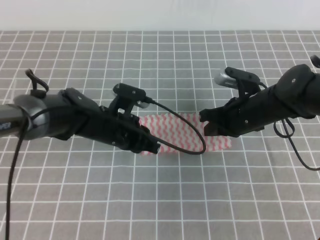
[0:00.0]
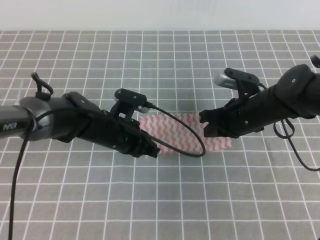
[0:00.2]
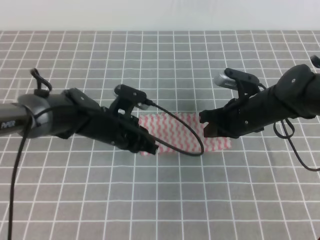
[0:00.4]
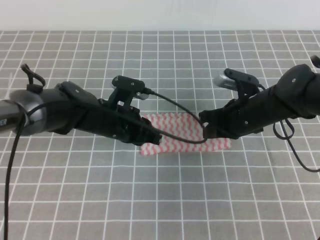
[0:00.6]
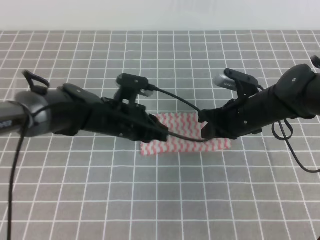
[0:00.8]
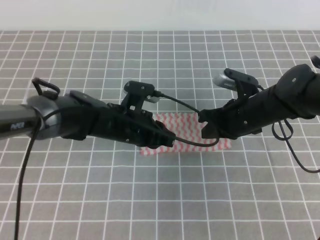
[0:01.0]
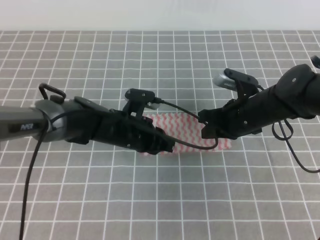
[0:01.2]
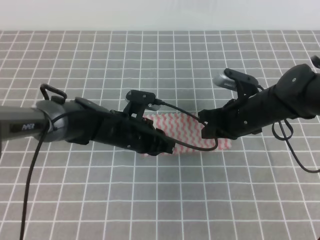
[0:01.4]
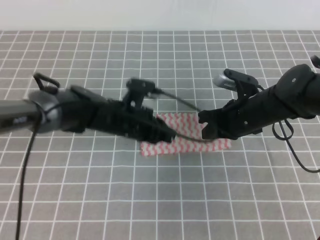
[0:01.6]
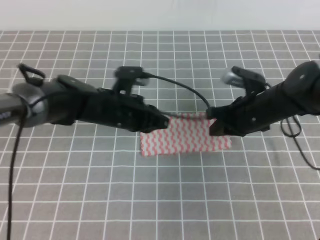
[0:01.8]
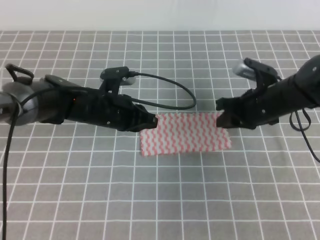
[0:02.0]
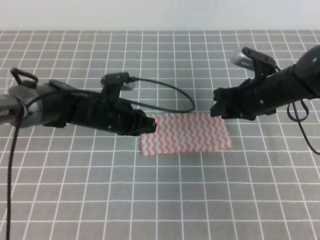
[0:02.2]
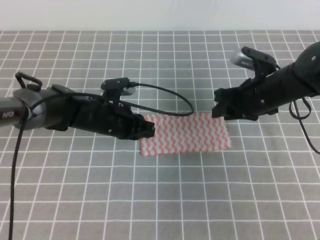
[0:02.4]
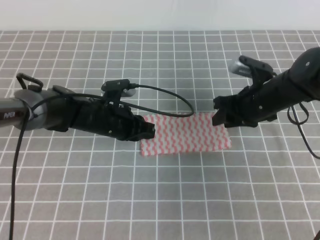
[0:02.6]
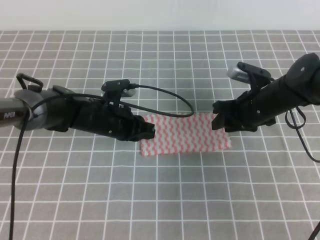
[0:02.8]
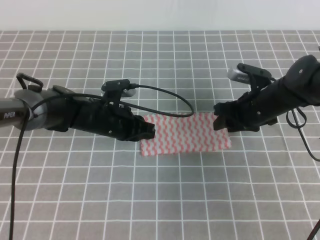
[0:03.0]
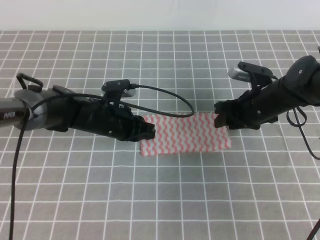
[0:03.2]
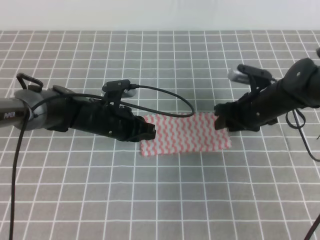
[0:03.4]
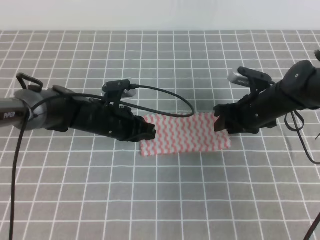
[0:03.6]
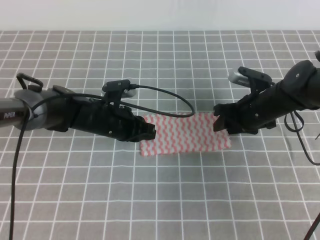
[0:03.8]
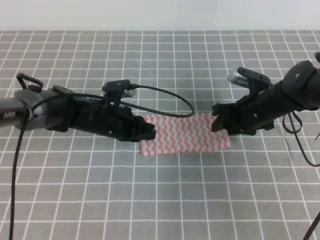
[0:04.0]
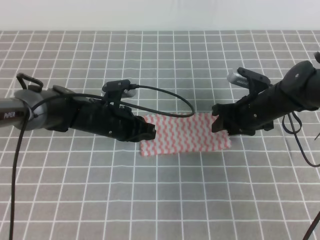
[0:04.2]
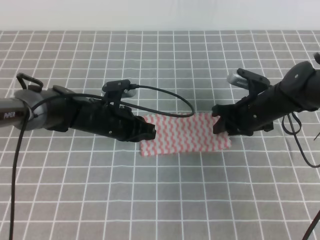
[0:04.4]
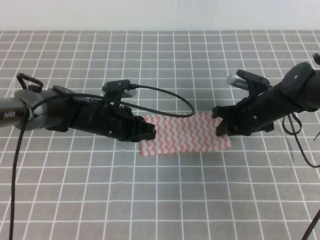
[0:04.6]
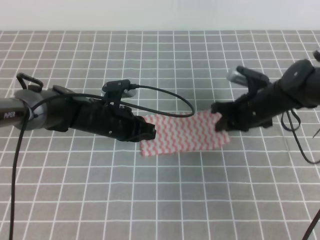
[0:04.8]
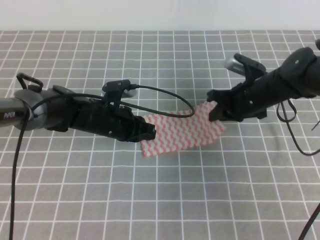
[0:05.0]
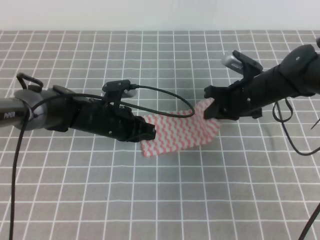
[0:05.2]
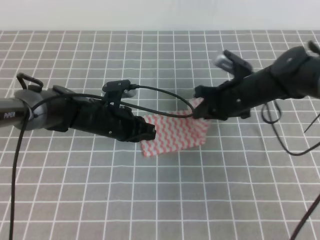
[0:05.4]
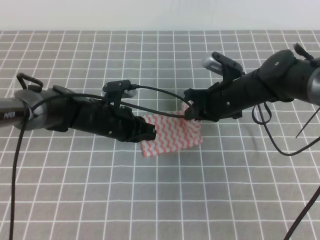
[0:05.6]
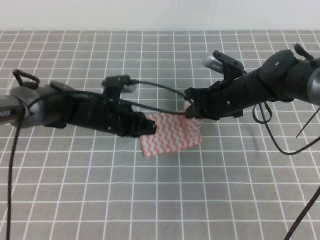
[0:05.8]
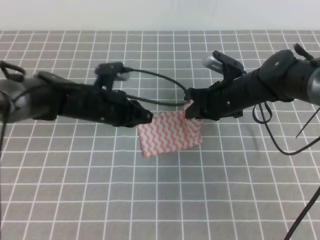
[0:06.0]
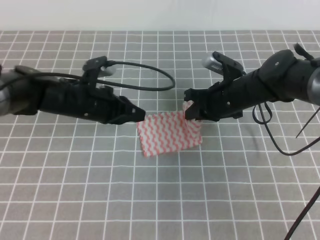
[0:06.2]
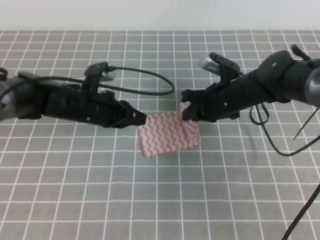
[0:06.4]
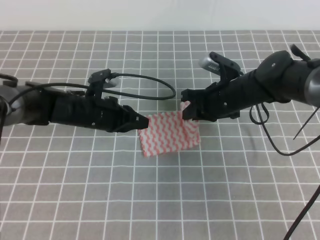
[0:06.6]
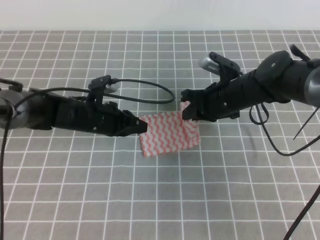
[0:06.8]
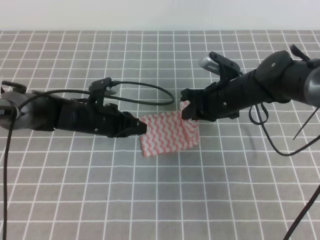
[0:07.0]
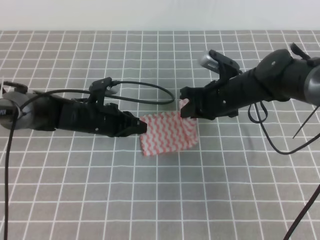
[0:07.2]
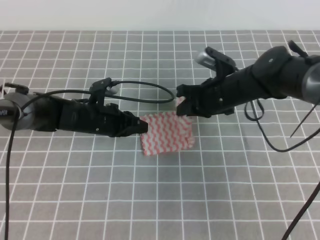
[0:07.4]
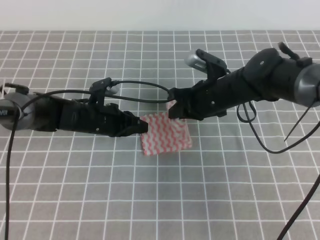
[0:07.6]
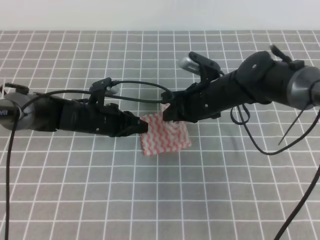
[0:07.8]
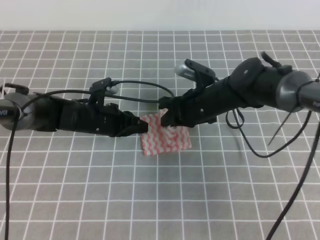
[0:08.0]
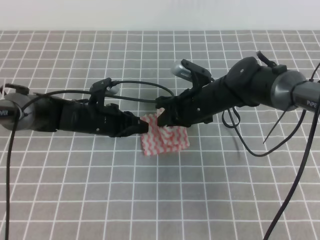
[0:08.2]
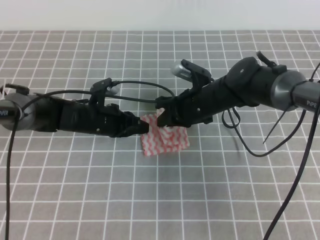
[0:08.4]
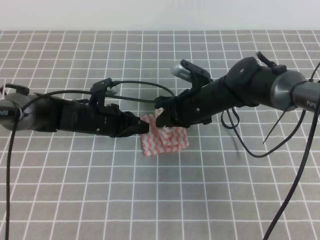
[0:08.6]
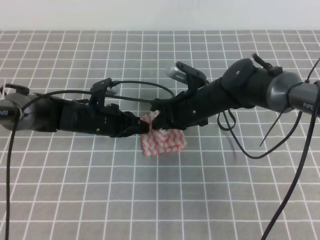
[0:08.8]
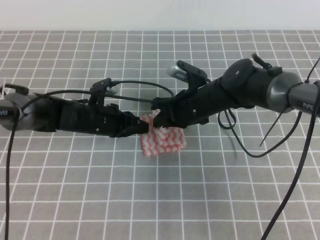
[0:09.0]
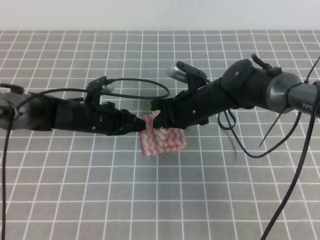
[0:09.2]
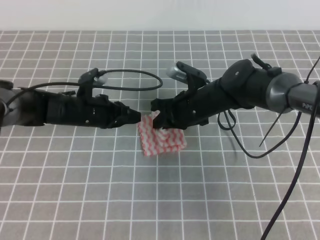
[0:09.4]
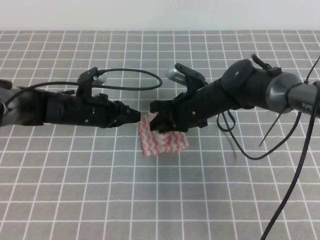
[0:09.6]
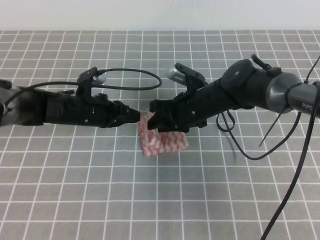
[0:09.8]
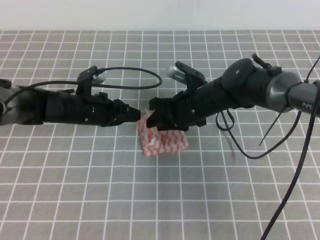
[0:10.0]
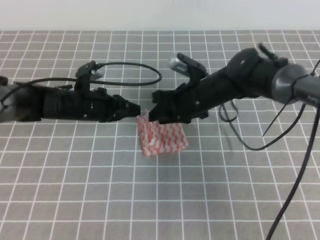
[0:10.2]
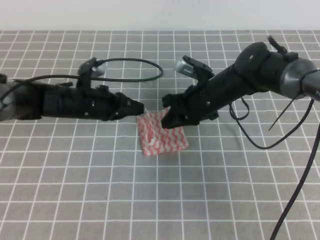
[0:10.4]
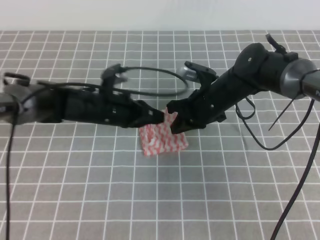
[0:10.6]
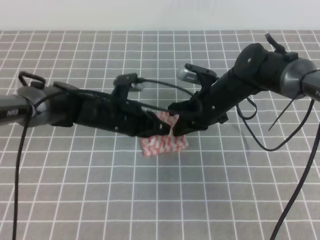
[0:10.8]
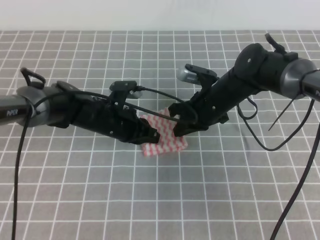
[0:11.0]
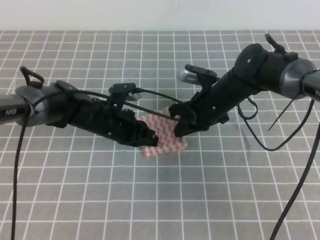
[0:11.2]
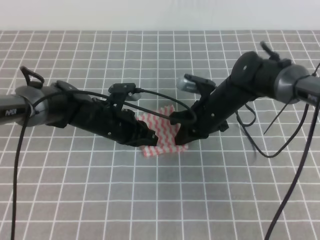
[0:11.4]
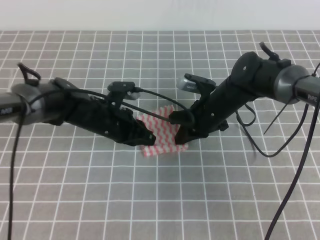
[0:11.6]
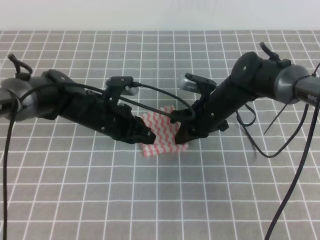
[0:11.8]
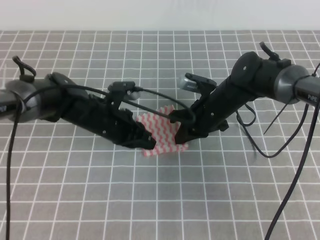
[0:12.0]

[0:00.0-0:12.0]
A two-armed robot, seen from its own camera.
0:00.0 to 0:01.6: The grippers move only a little.
0:01.6 to 0:03.0: The right gripper opens.
0:03.0 to 0:04.4: The right gripper closes up.
0:04.4 to 0:06.0: The right gripper heads to the left, covering some 5 cm, and closes up.
0:06.0 to 0:07.6: The left gripper moves downward, some 5 cm.
0:07.6 to 0:09.0: The grippers stay close to where they were, moving slightly.
0:09.0 to 0:10.4: The right gripper opens and closes again.

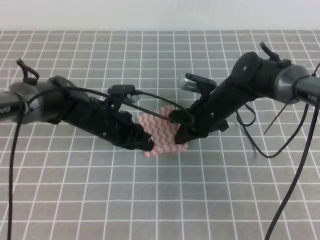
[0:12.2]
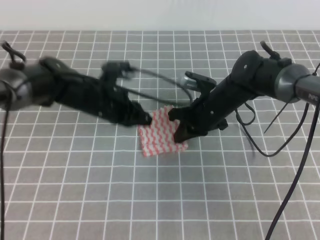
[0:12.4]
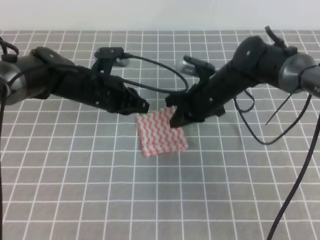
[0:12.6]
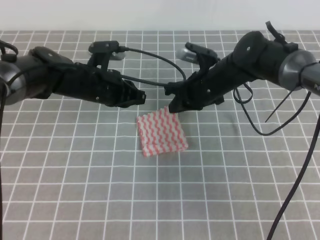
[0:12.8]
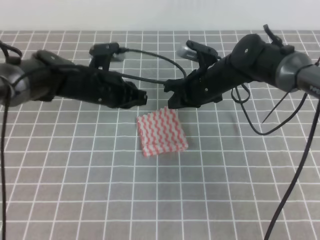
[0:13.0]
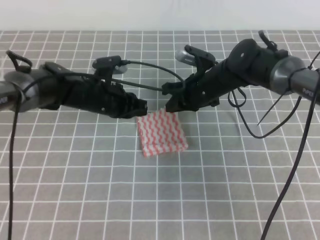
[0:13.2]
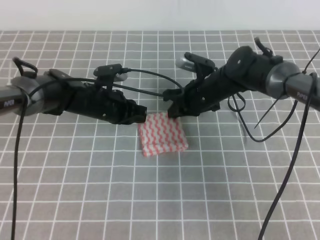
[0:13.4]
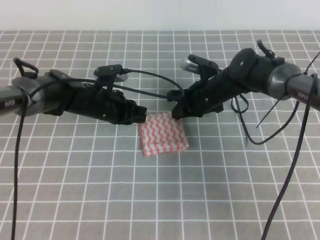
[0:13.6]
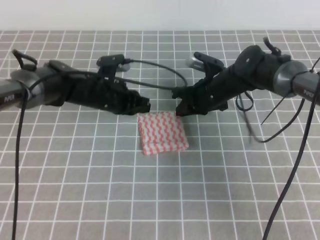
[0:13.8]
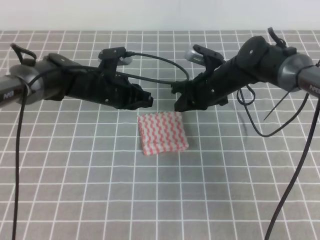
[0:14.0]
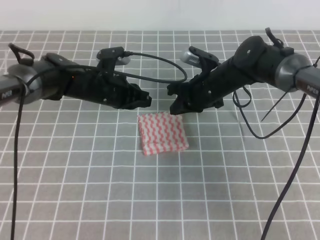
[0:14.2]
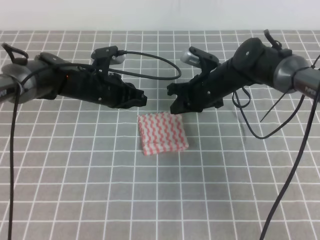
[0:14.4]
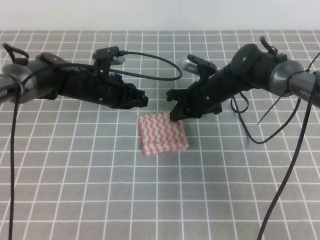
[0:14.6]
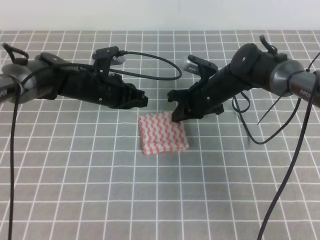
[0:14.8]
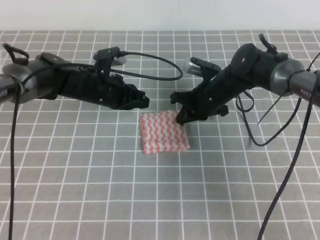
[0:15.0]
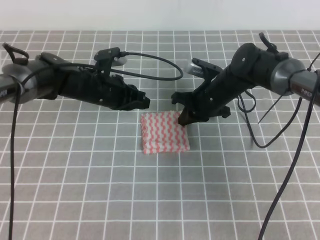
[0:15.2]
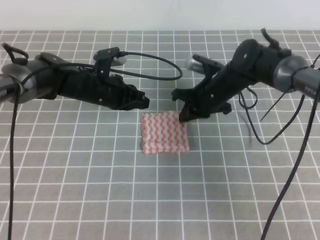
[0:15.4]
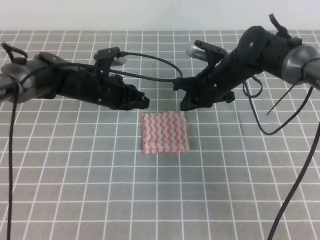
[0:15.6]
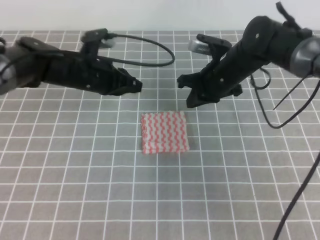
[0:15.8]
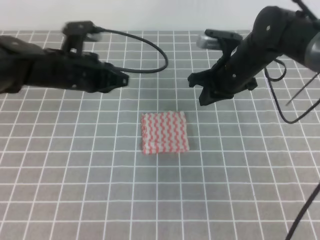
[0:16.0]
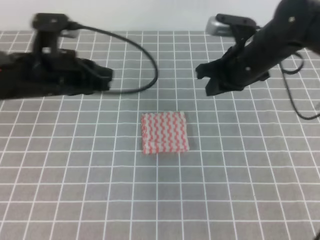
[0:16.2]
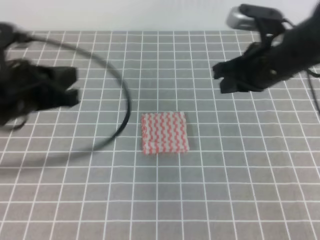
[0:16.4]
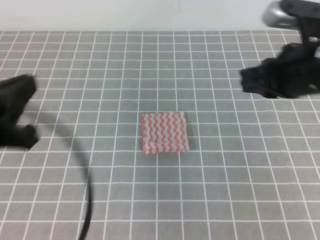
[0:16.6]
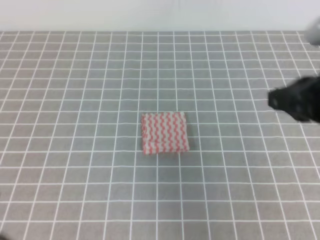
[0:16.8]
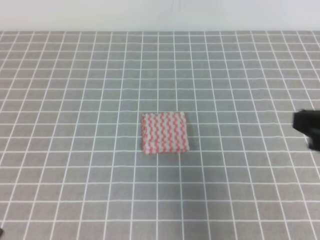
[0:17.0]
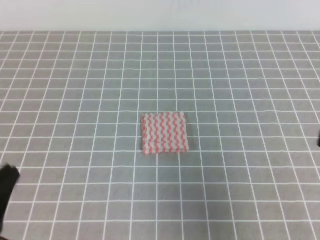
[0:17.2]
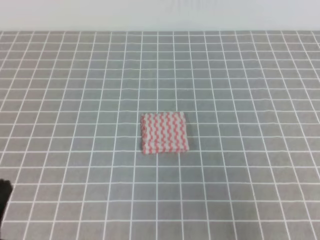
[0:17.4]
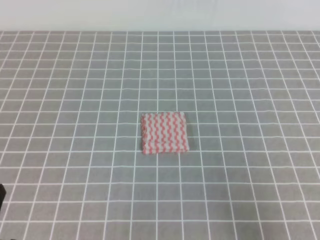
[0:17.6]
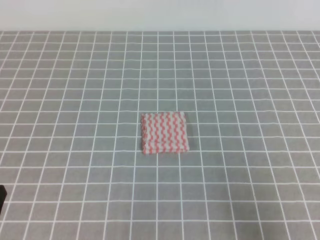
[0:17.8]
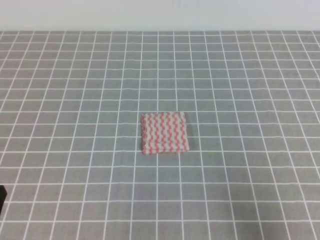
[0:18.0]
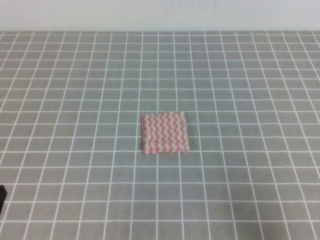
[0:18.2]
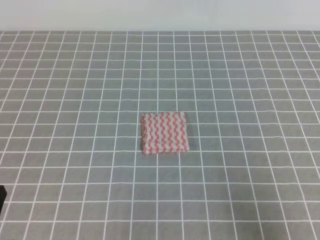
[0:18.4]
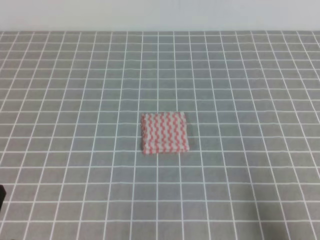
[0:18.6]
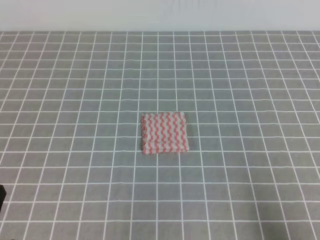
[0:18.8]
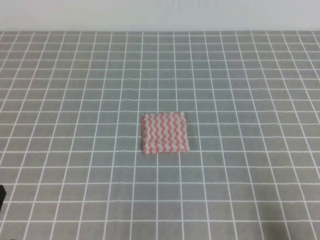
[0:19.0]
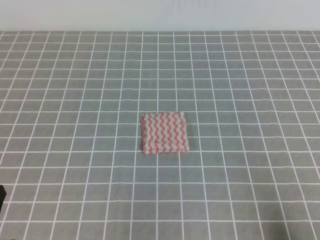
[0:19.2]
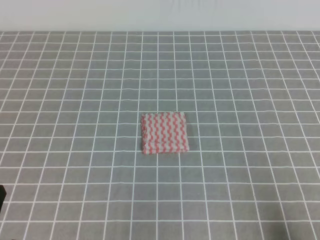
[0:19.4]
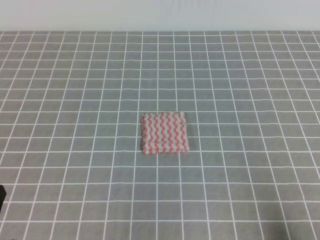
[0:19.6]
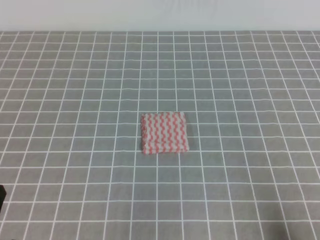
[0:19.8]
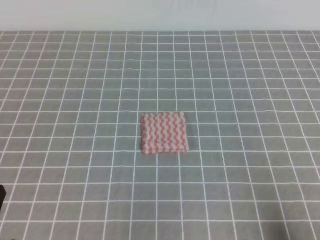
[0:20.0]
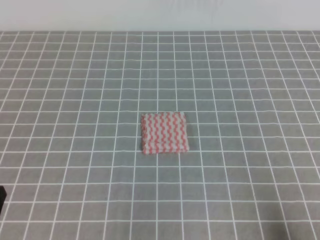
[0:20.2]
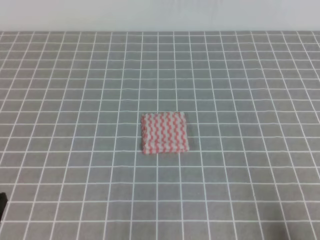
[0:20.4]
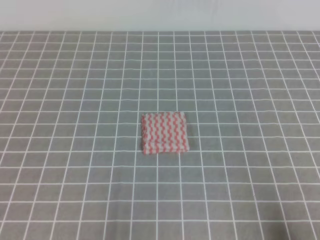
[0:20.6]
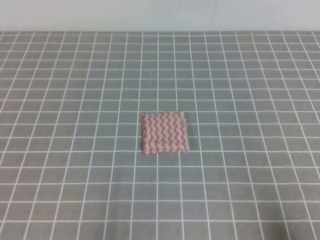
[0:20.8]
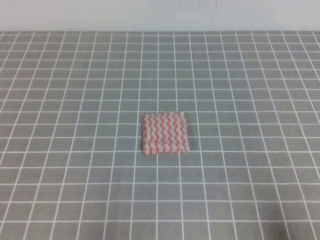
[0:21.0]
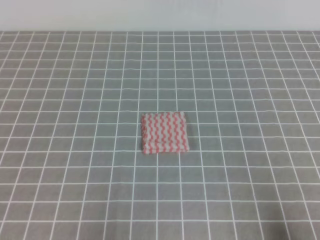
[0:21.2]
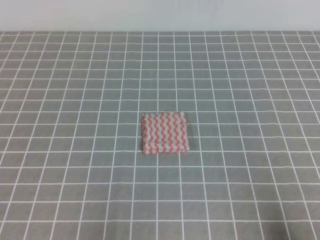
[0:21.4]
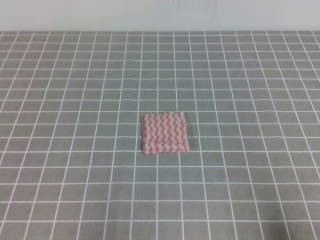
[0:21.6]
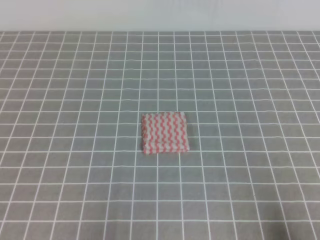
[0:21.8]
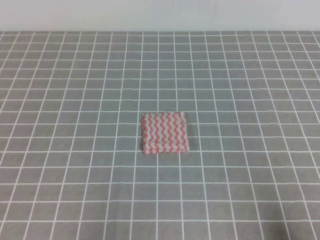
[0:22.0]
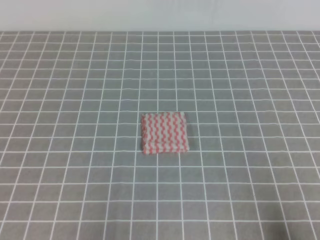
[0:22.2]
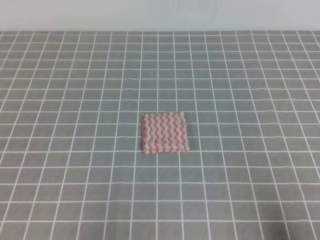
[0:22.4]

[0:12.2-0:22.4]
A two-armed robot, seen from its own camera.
0:13.6 to 0:15.2: The grippers stay close to where they were, moving slightly.
0:15.2 to 0:16.6: The right gripper travels upward, backward and to the right by roughly 25 cm. The left gripper is displaced backward and upward by roughly 30 cm.
0:16.6 to 0:18.0: The right gripper heads backward, downward and to the right, covering some 25 cm. The left gripper moves downward and backward, about 15 cm.
0:18.0 to 0:19.4: The right gripper moves downward, some 5 cm.
0:21.0 to 0:22.4: Neither gripper changes place.
